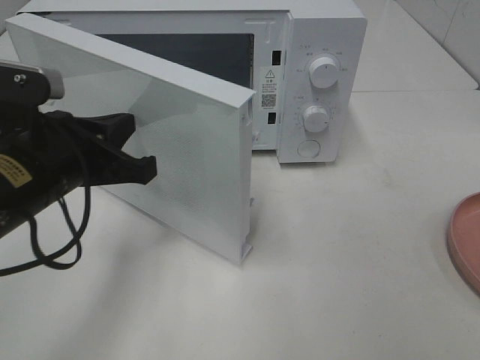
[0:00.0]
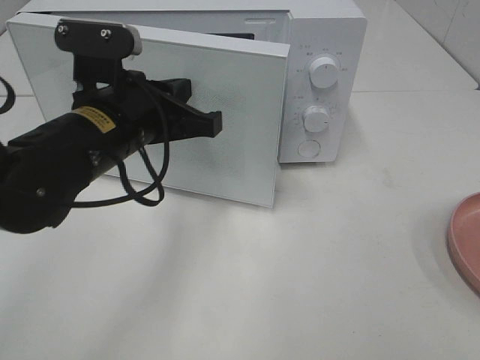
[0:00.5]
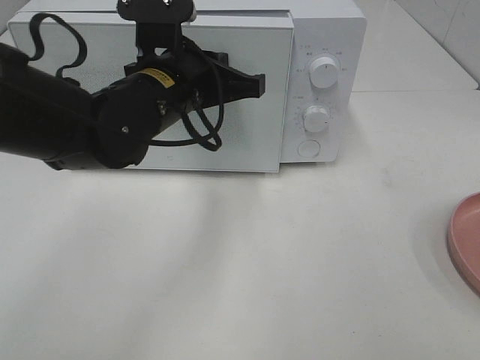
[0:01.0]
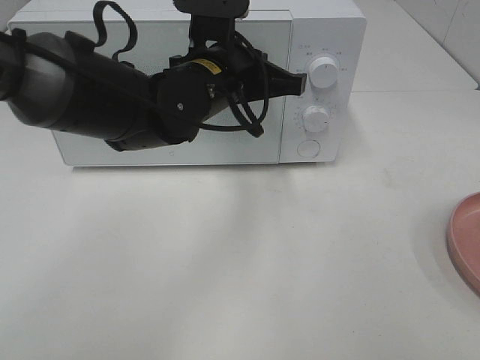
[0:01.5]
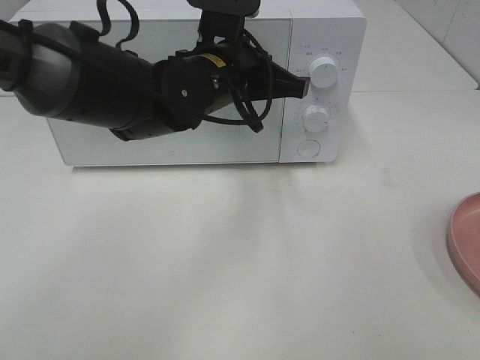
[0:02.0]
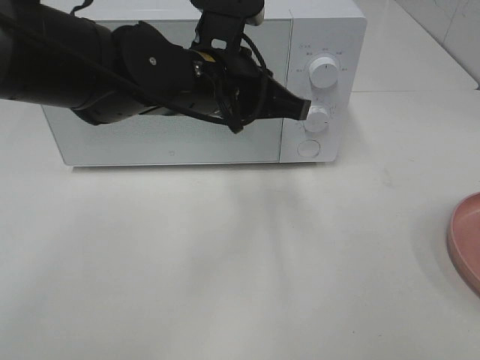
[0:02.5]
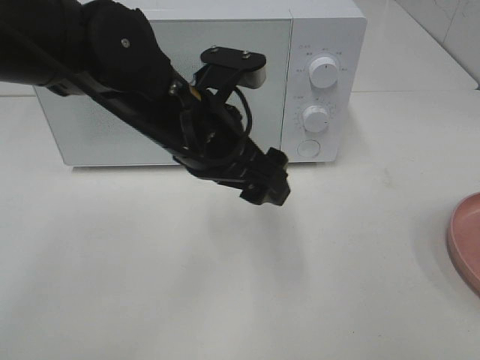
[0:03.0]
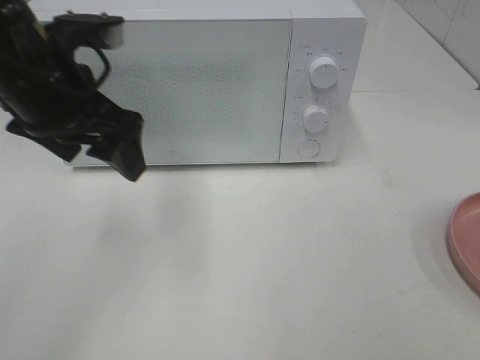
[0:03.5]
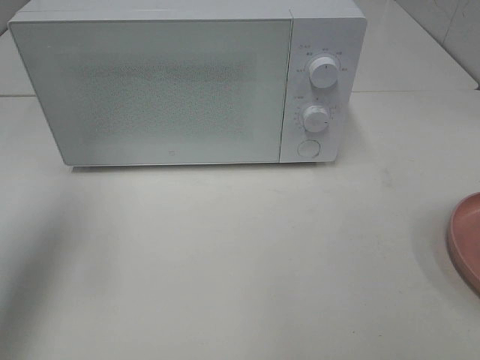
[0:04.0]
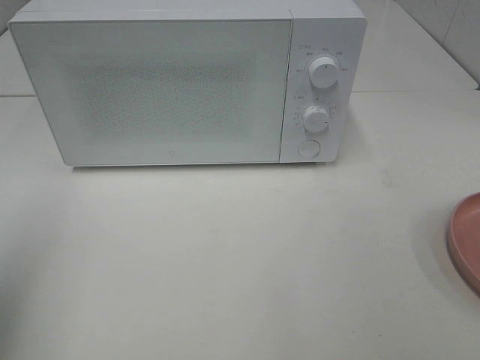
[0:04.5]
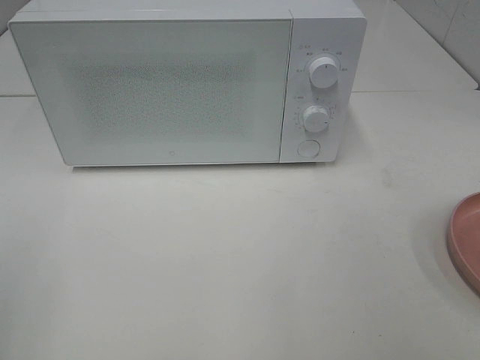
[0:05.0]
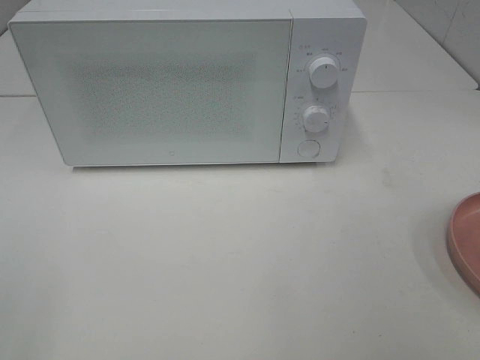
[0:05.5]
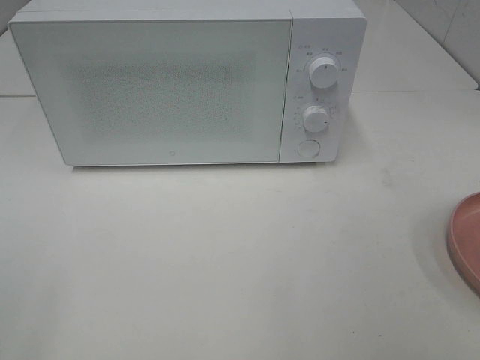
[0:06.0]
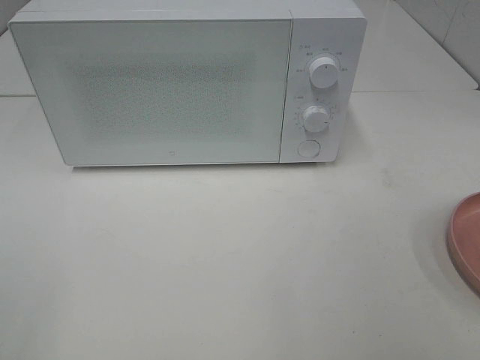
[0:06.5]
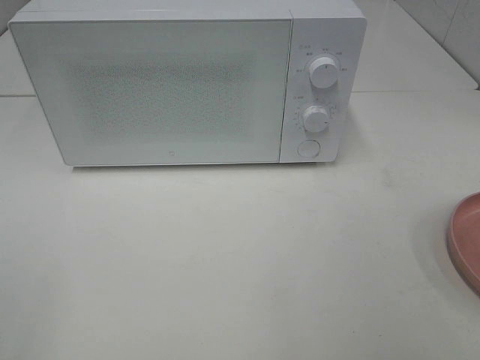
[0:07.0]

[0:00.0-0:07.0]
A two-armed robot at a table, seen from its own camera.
Task of the whole recording: Heat the burger.
Step, 0:00.0 to 0:02.0: Left hand: close the microwave door.
0:00.0 to 0:02.0: The left gripper goes roughly 20 cm to the right and forward.
0:02.0 to 0:03.5: The left gripper heads to the left and upward, covering roughly 15 cm, and opens.
0:03.5 to 0:05.0: The left gripper travels backward and to the left by about 30 cm.
